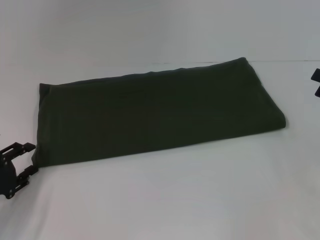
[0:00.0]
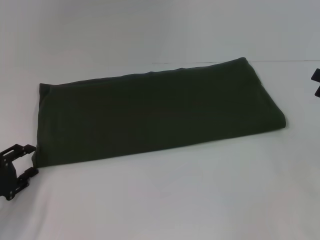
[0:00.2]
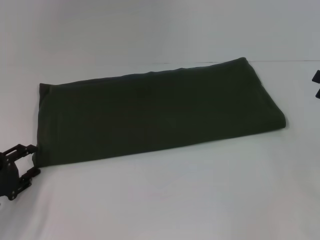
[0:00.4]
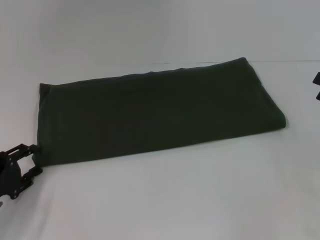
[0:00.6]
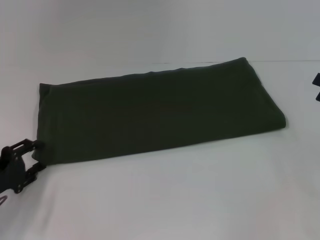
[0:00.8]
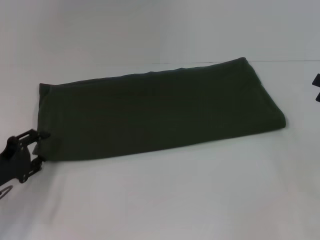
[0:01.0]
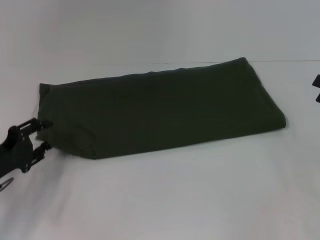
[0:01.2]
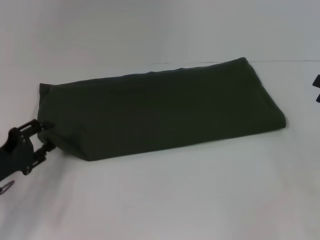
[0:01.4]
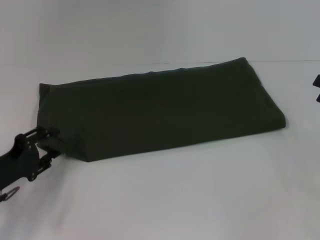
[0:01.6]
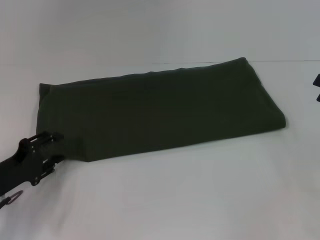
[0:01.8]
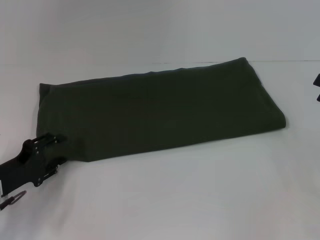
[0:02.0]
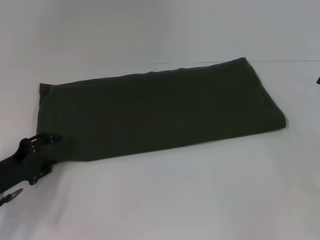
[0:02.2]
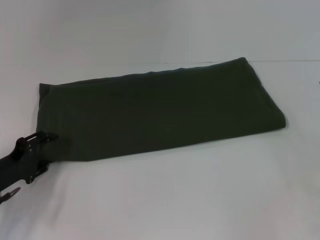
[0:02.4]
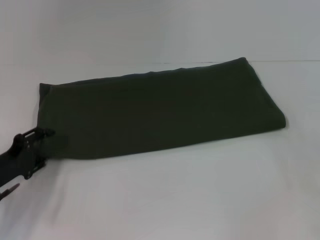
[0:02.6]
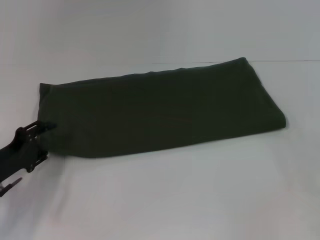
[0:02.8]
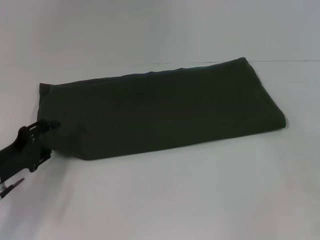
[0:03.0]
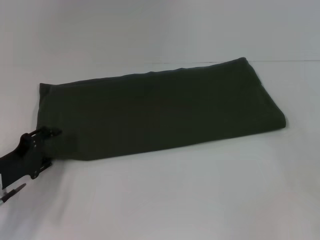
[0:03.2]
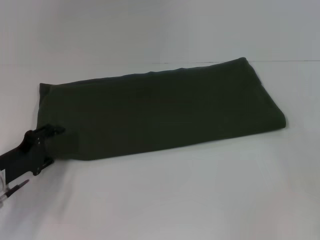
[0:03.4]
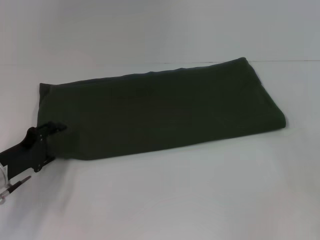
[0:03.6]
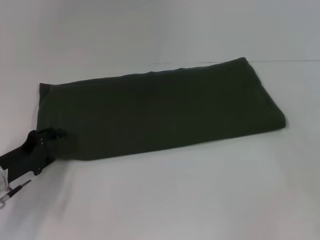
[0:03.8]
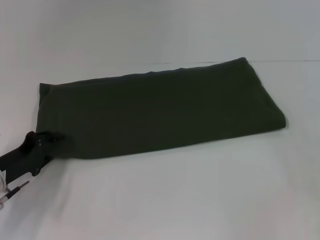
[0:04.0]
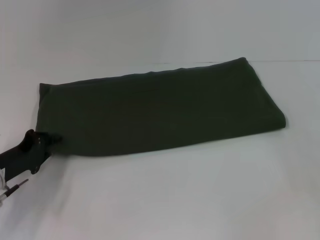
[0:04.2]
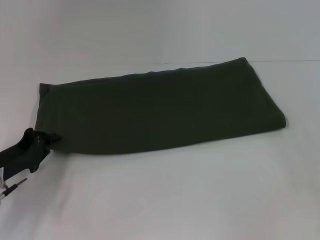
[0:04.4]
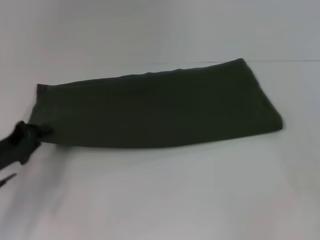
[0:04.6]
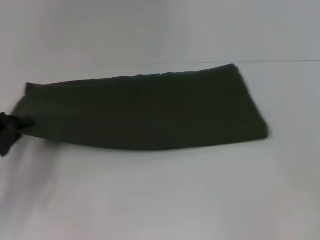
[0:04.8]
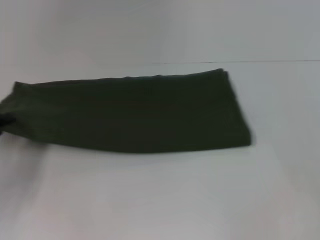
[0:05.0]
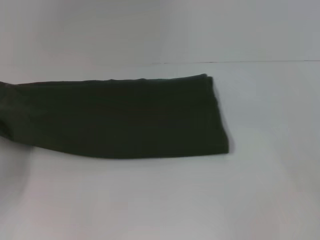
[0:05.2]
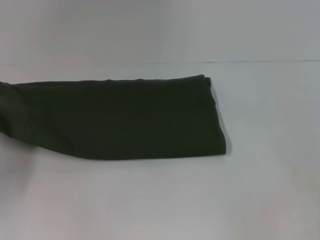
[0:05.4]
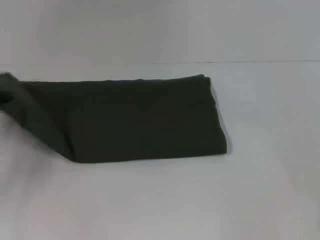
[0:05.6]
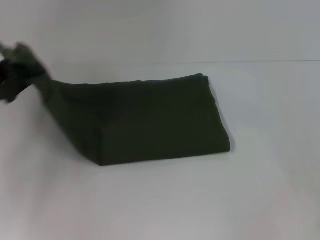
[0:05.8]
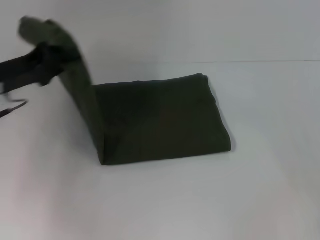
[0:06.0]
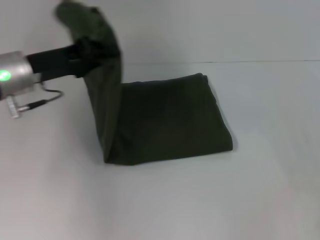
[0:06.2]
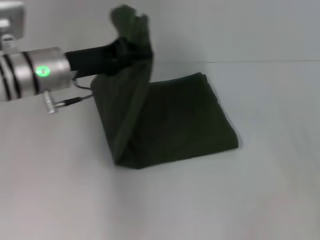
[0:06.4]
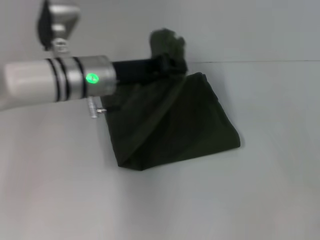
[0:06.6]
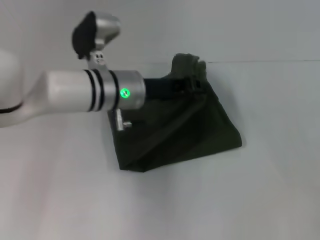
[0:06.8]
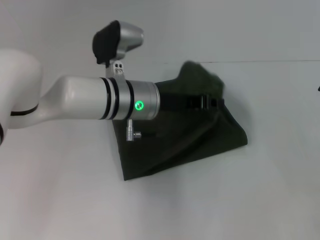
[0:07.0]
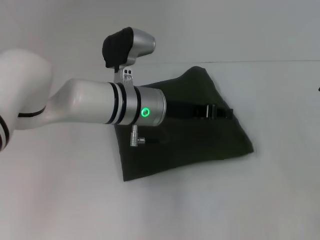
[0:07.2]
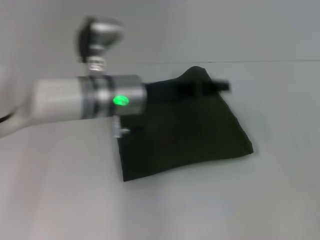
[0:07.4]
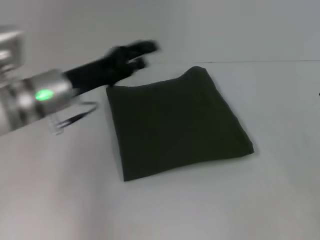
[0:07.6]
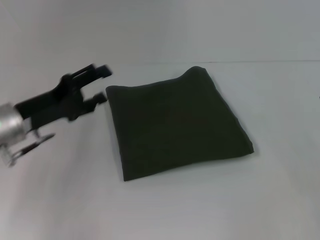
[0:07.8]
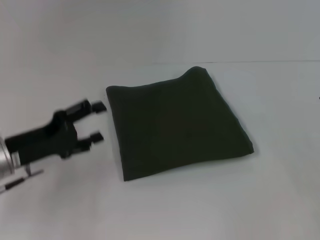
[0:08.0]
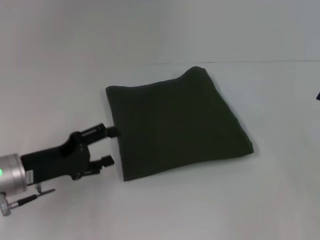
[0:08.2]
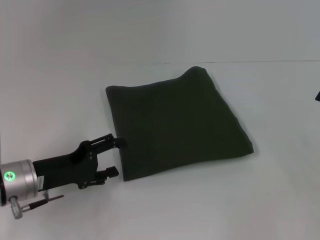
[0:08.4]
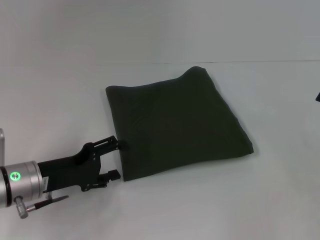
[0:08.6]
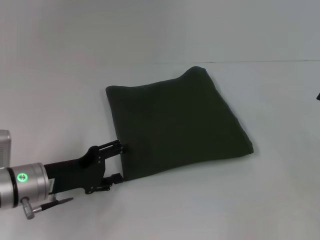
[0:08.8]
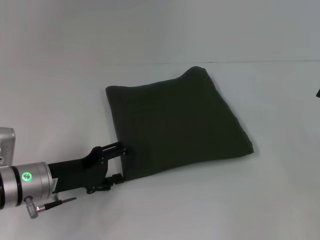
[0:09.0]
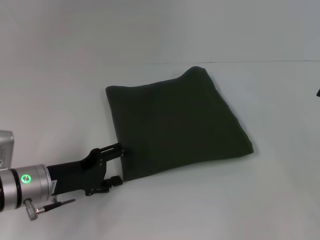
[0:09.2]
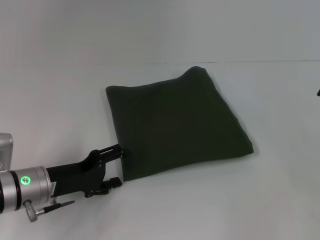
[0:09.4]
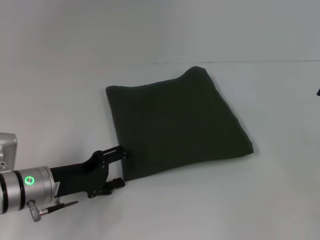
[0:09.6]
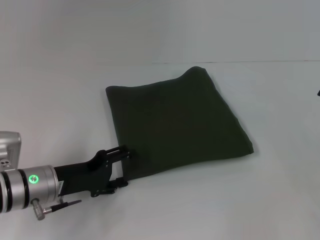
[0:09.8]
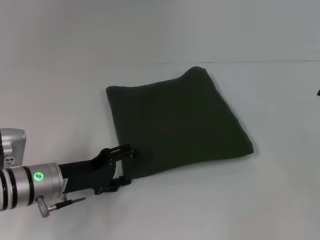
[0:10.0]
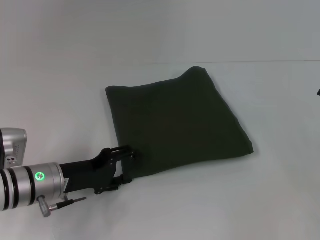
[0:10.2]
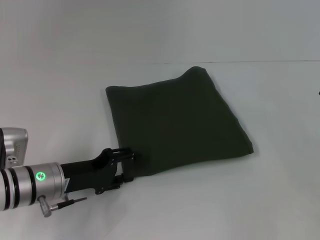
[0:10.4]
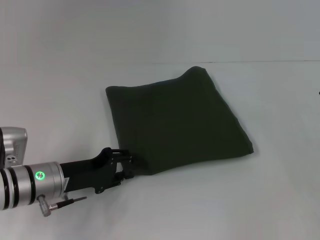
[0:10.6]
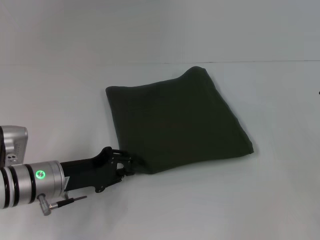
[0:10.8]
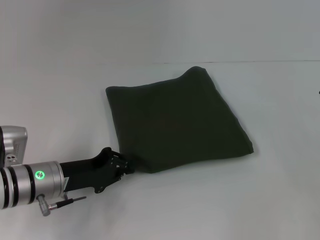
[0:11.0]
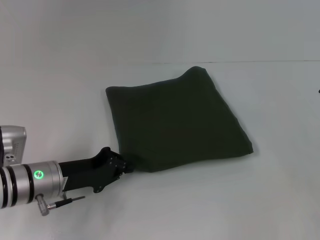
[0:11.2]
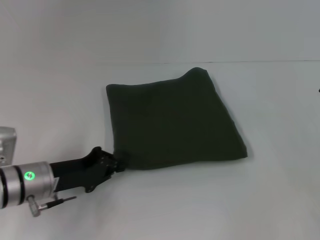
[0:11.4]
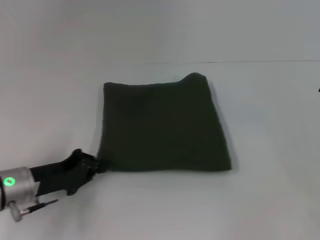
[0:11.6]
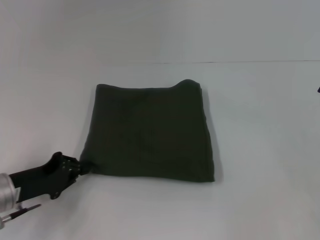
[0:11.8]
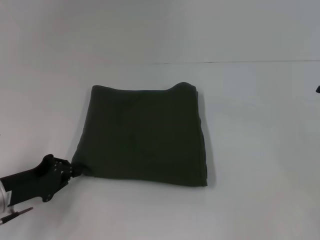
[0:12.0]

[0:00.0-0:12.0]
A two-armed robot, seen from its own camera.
Step, 0:00.0 to 0:07.2: Fold the clothes with your left hand.
0:00.0 to 0:03.0: There are only small adjustments of the grippers.
0:03.0 to 0:04.4: The left gripper closes its fingers.
0:04.4 to 0:06.0: The left gripper shifts some 15 cm upward and forward.
0:06.0 to 0:07.6: The left gripper is displaced to the right by about 10 cm, and opens up.
0:07.6 to 0:09.0: The left gripper moves downward and backward, roughly 10 cm, and opens up.
0:09.0 to 0:10.4: The grippers move only a little.
0:10.4 to 0:12.0: The left gripper travels to the left by about 10 cm, and closes up.

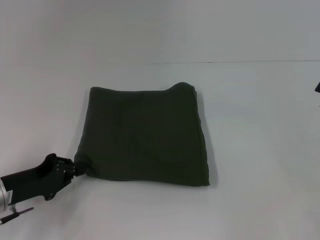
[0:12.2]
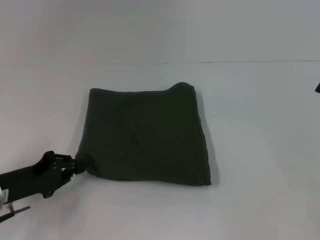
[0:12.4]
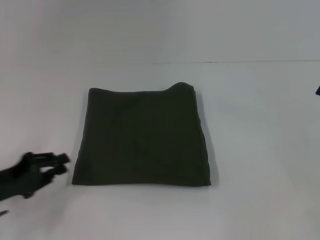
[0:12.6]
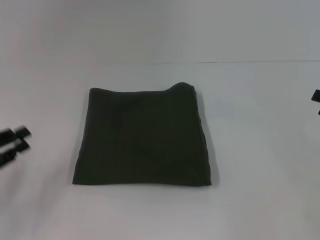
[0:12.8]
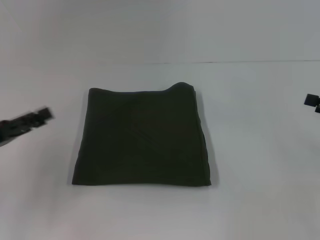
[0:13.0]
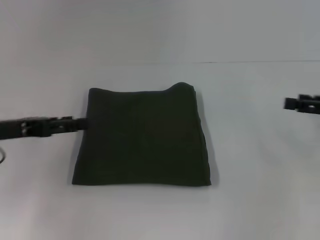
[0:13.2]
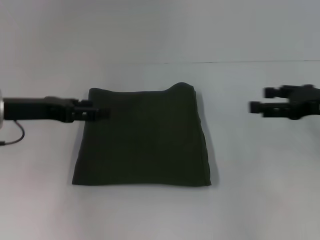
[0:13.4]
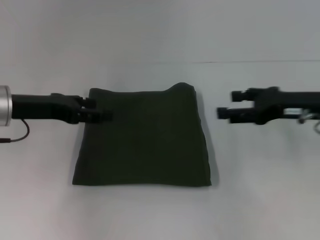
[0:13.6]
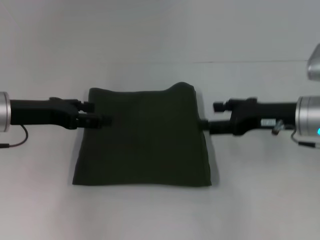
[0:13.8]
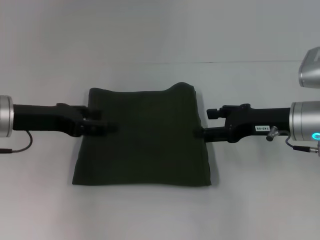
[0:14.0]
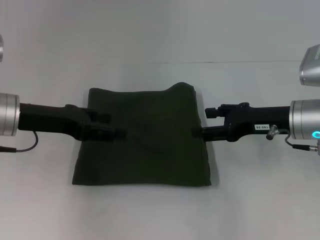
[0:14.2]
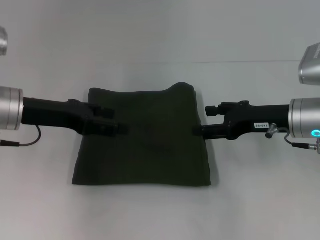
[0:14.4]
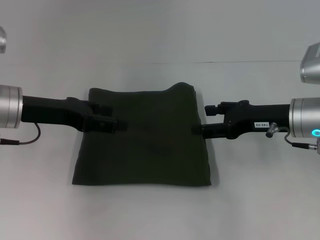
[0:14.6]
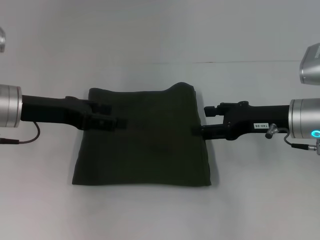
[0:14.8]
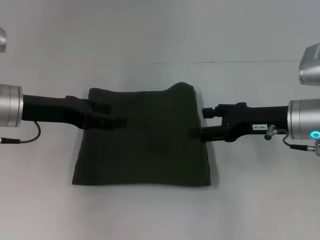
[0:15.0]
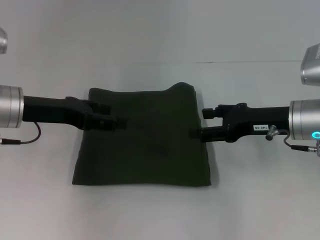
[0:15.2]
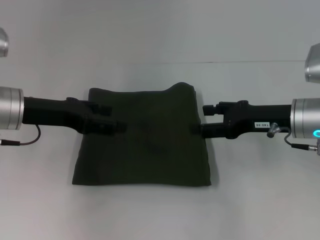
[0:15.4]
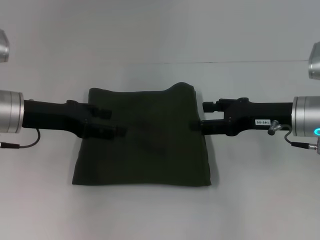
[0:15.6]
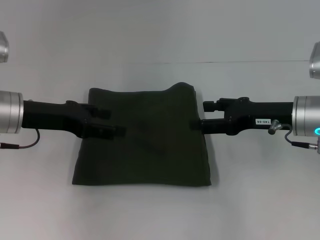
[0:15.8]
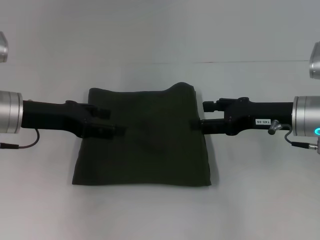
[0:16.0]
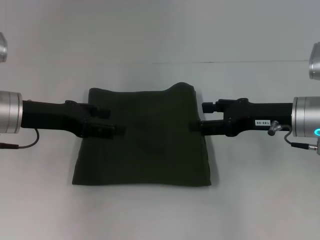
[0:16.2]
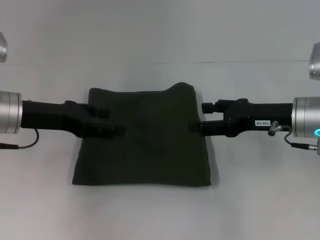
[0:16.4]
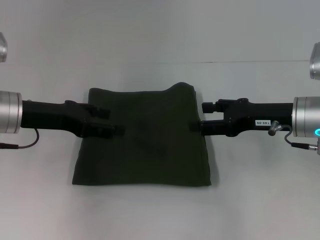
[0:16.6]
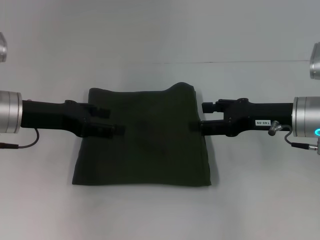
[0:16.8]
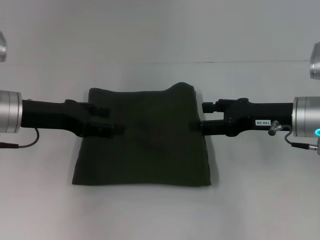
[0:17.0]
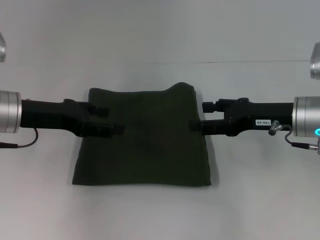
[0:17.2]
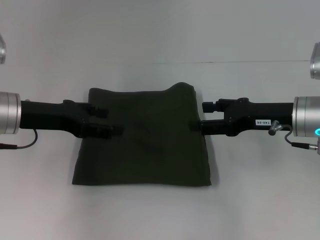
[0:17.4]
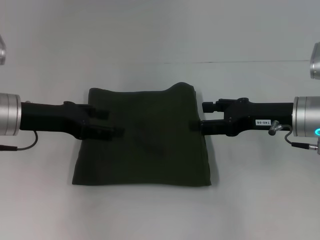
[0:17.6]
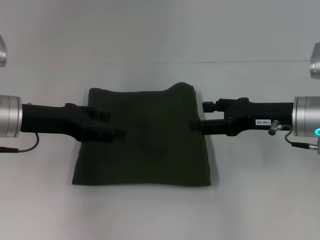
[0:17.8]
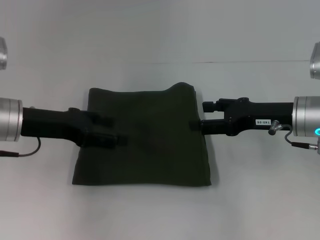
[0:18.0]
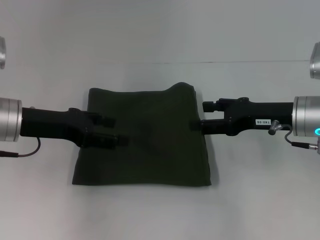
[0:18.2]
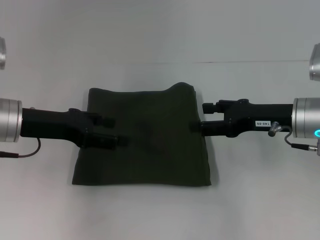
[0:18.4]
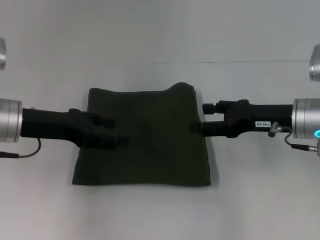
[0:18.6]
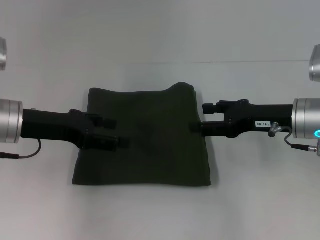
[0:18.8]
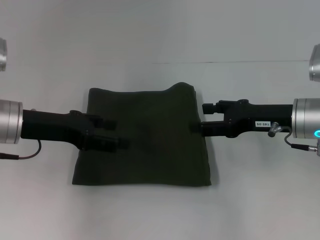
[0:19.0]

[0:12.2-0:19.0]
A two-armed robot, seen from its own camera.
0:12.2 to 0:13.6: The right gripper goes roughly 15 cm to the left and forward, while the left gripper shifts some 15 cm upward and forward, and opens.
0:13.6 to 0:15.0: The right gripper changes place by approximately 5 cm.
0:15.0 to 0:16.2: The grippers move only a little.
0:16.2 to 0:17.6: Neither gripper changes place.
0:17.6 to 0:19.0: There are only small adjustments of the grippers.
